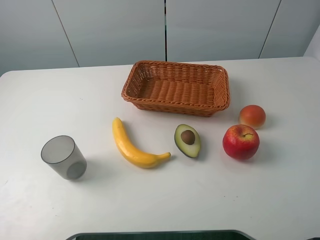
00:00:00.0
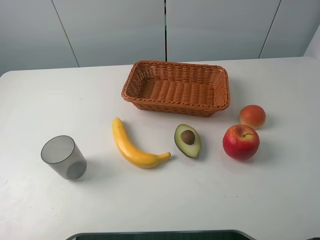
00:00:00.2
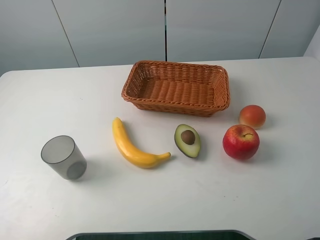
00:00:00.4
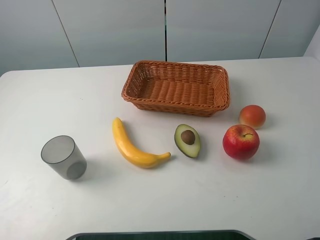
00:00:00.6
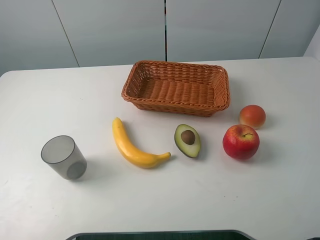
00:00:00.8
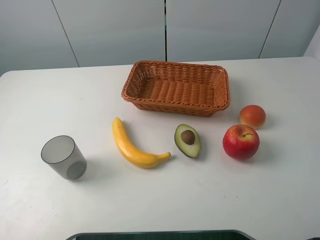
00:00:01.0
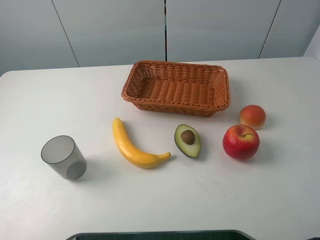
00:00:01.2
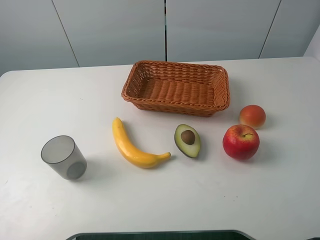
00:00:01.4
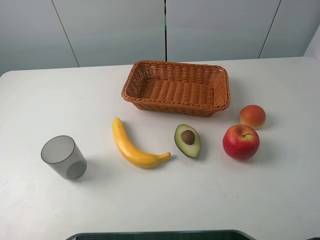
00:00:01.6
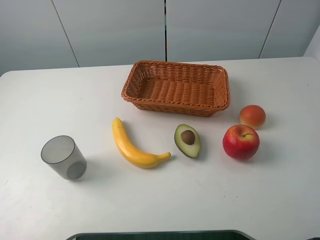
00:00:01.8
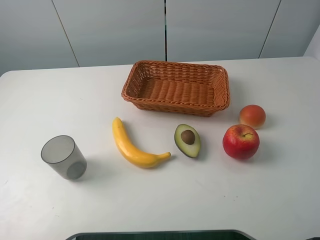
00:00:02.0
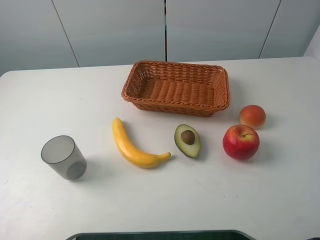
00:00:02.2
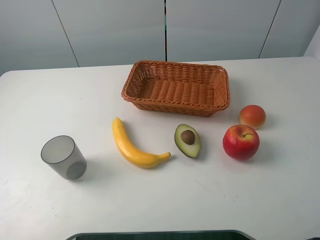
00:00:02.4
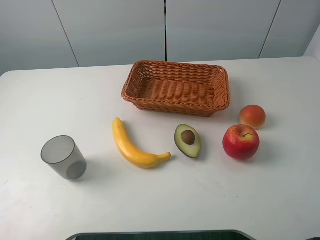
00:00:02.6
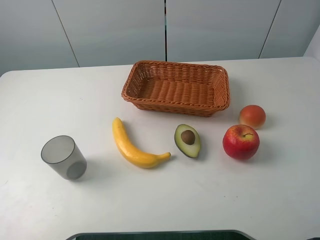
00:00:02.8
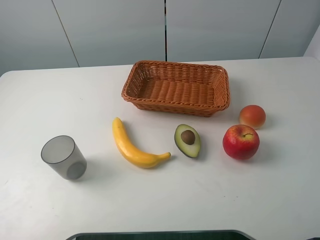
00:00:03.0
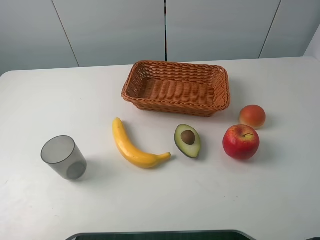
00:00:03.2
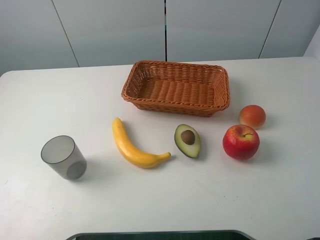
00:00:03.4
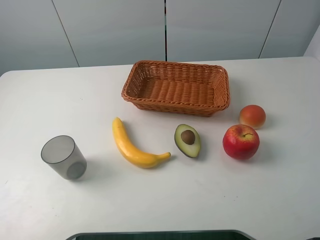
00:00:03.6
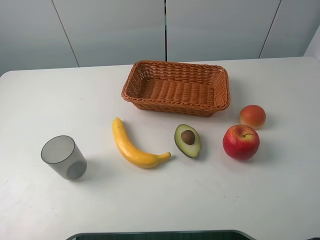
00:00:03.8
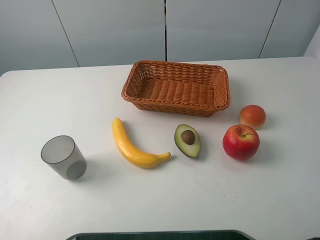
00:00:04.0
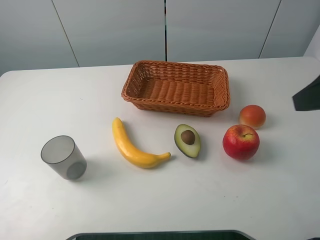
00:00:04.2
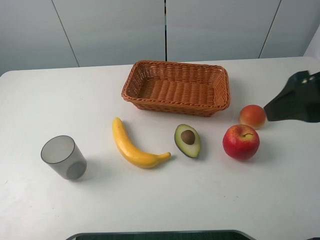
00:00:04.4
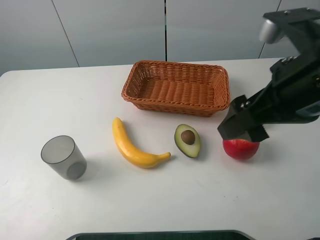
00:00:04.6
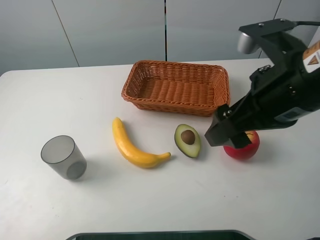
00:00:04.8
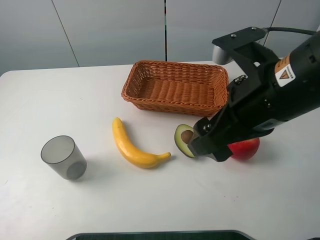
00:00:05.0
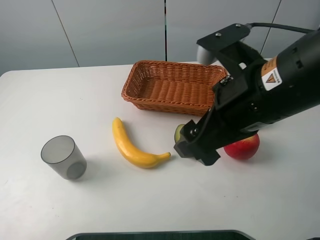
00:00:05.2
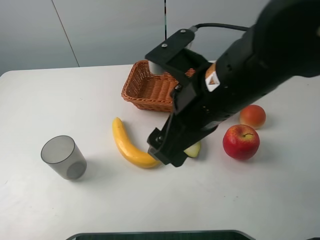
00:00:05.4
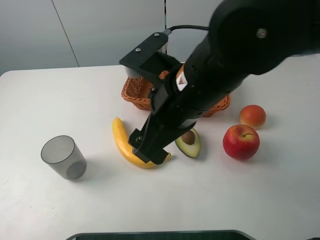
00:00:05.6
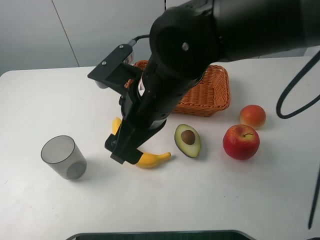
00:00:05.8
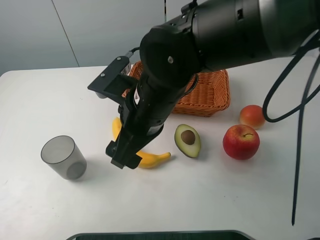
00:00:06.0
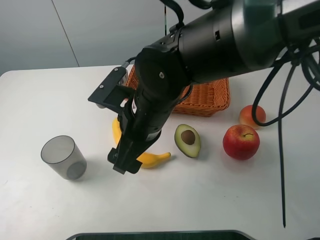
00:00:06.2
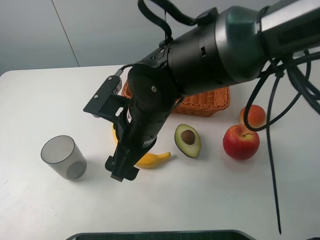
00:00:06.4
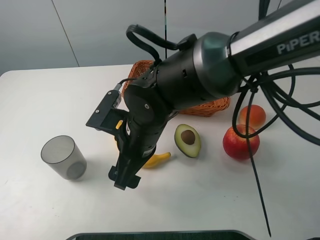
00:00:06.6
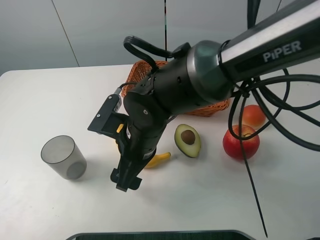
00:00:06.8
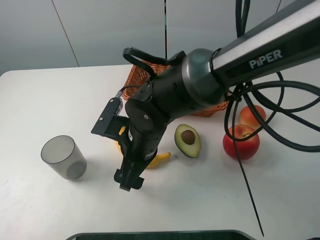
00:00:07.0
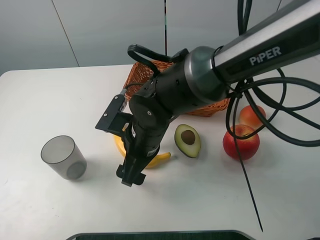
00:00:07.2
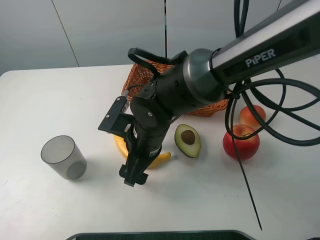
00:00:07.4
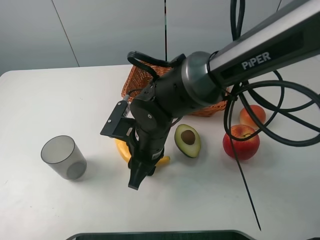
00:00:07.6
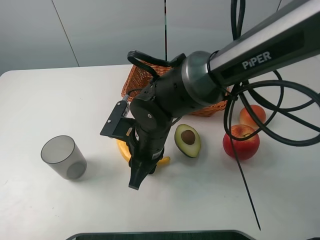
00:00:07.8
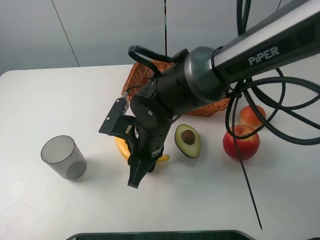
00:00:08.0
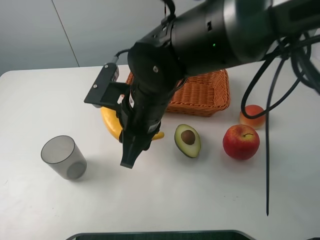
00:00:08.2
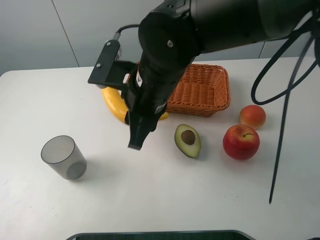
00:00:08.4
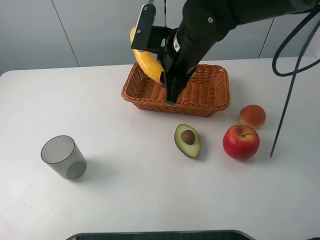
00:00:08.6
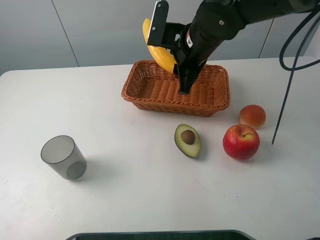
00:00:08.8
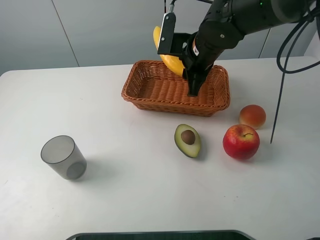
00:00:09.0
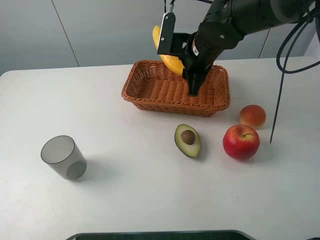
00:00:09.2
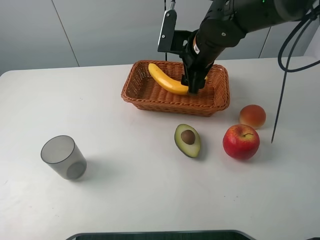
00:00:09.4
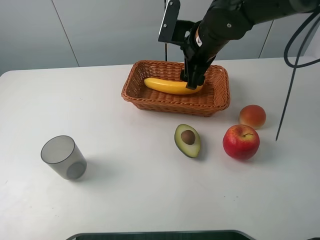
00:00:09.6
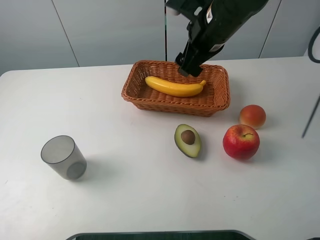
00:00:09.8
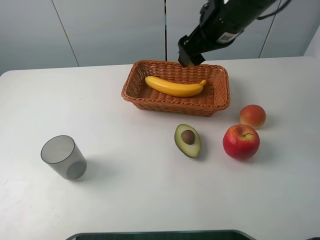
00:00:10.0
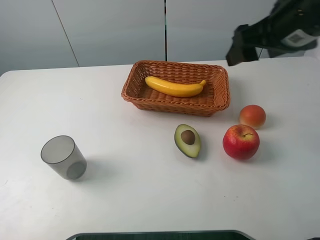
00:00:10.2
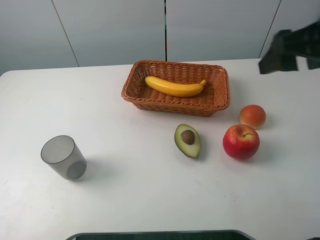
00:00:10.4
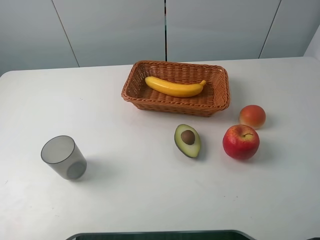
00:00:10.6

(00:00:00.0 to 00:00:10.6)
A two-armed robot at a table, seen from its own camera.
Task of the whole recording: randomly pick up an item from the table and put it in the basket.
Step, 00:00:00.0 - 00:00:07.6: Grasp the banana with the right gripper.
Step, 00:00:07.8 - 00:00:09.6: Place the banana into the basket with the right gripper.
00:00:00.0 - 00:00:01.6: Both grippers stay put.
00:00:03.0 - 00:00:04.6: The right gripper shifts some 20 cm forward, to the left and downward.
00:00:04.6 - 00:00:06.0: The right gripper goes approximately 20 cm to the left and downward.
00:00:06.0 - 00:00:07.6: The right gripper heads downward, covering roughly 10 cm, and closes its fingers.
00:00:07.6 - 00:00:09.0: The right gripper shifts about 20 cm forward, to the right and upward.
00:00:09.0 - 00:00:10.6: The right gripper shifts about 35 cm backward, to the right and upward, and opens up.

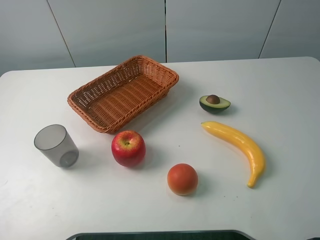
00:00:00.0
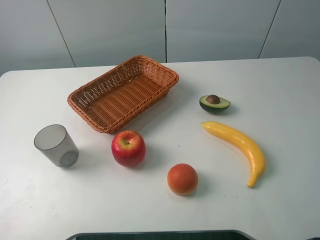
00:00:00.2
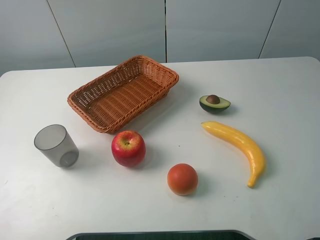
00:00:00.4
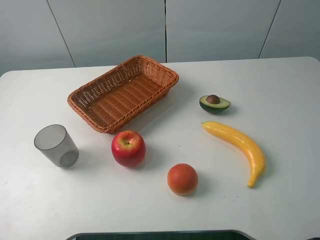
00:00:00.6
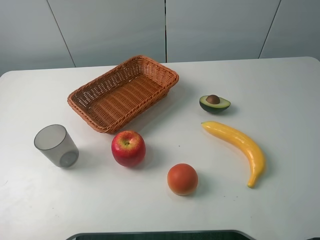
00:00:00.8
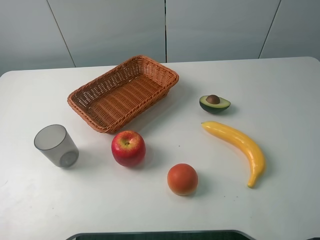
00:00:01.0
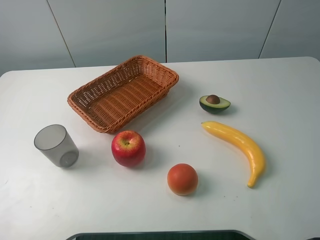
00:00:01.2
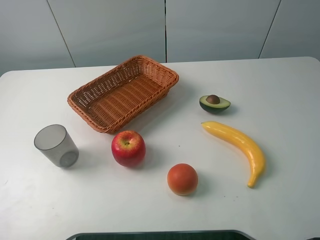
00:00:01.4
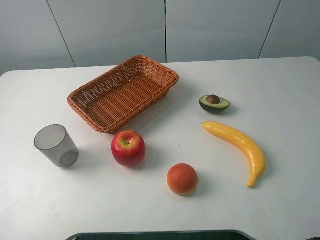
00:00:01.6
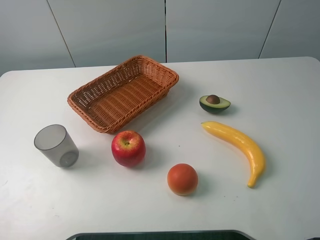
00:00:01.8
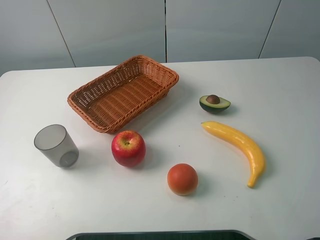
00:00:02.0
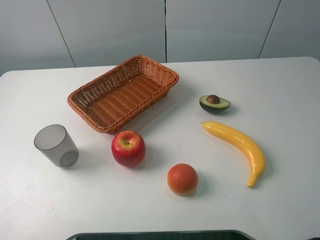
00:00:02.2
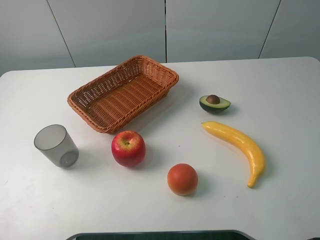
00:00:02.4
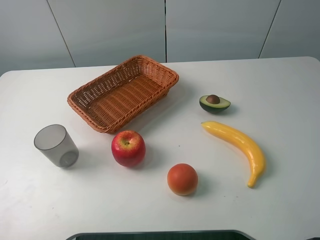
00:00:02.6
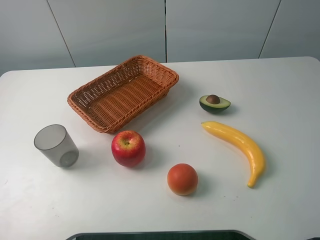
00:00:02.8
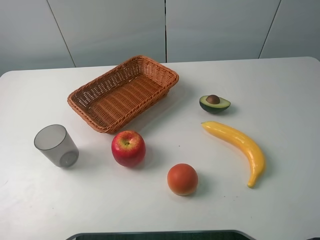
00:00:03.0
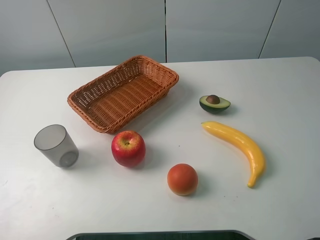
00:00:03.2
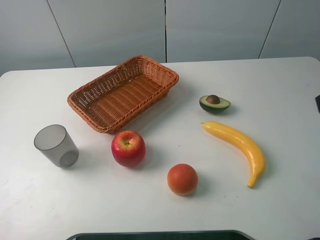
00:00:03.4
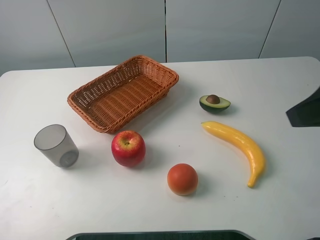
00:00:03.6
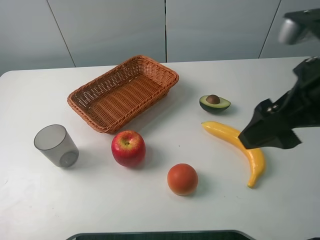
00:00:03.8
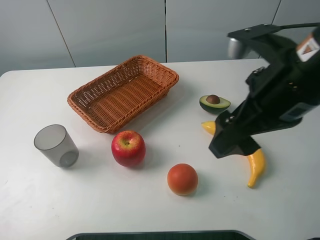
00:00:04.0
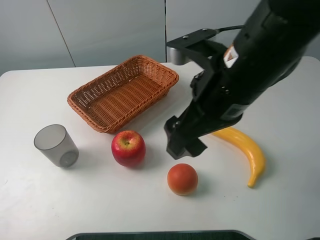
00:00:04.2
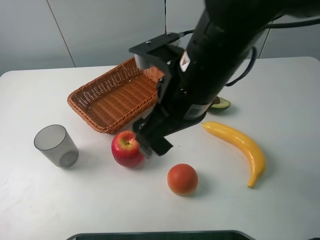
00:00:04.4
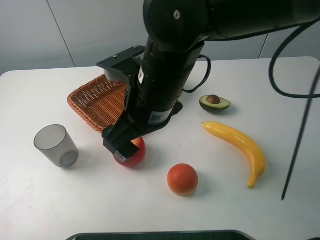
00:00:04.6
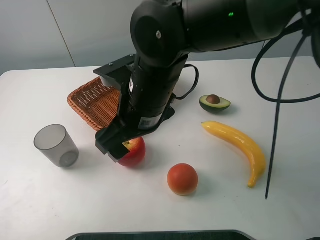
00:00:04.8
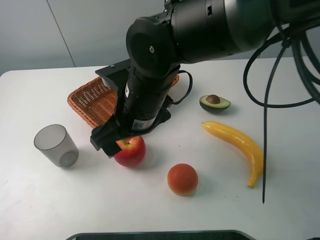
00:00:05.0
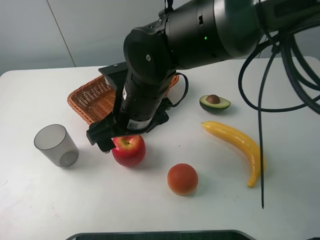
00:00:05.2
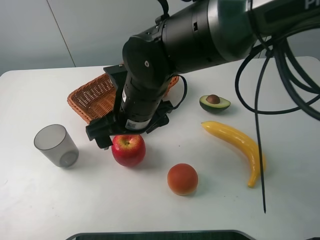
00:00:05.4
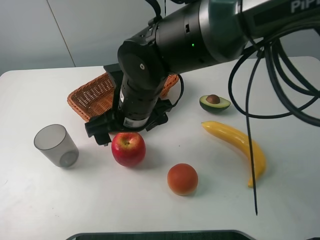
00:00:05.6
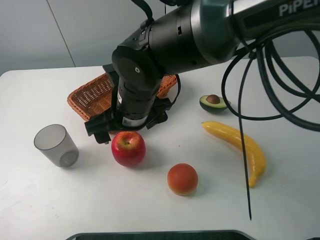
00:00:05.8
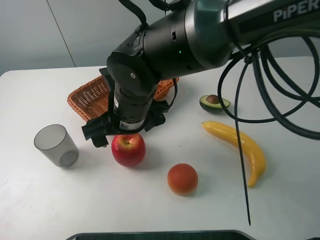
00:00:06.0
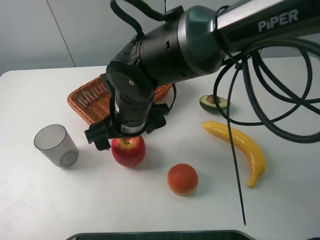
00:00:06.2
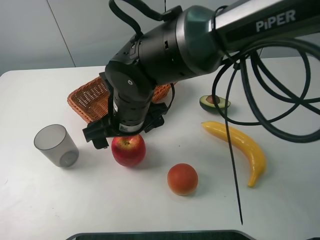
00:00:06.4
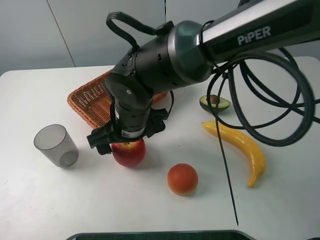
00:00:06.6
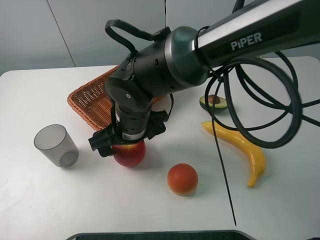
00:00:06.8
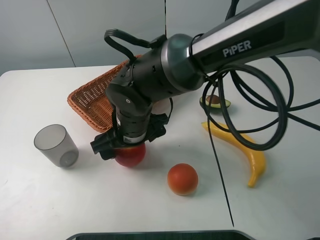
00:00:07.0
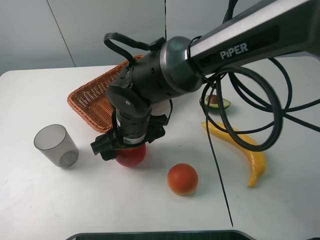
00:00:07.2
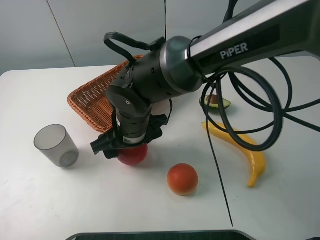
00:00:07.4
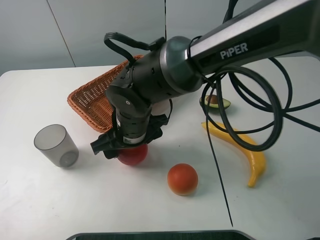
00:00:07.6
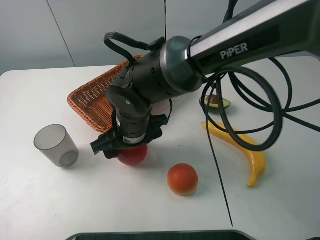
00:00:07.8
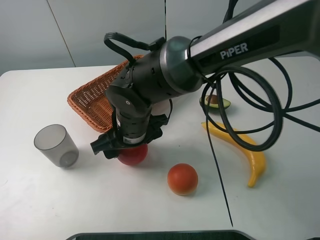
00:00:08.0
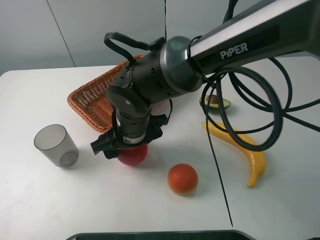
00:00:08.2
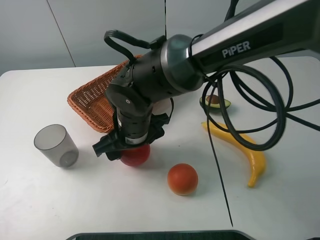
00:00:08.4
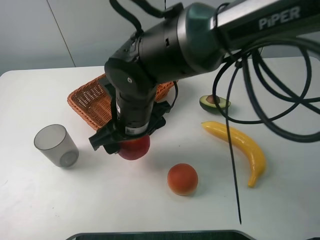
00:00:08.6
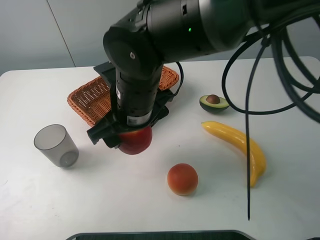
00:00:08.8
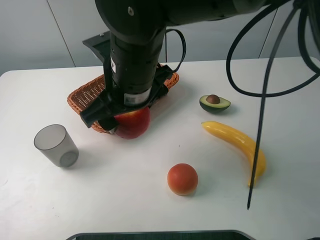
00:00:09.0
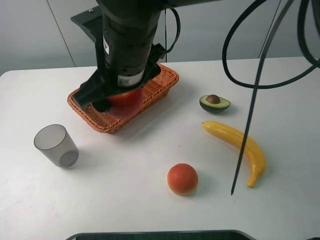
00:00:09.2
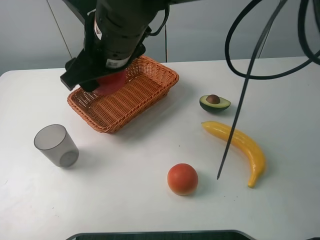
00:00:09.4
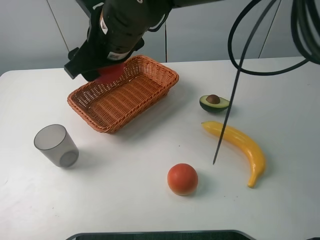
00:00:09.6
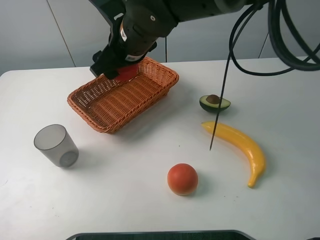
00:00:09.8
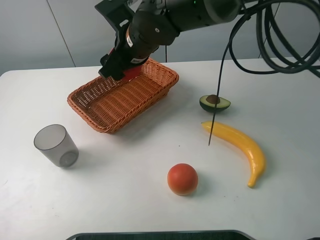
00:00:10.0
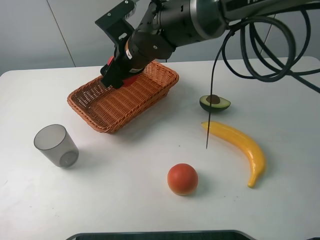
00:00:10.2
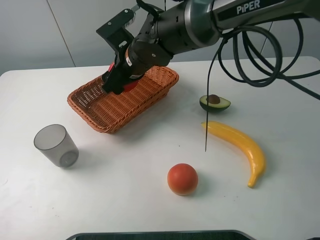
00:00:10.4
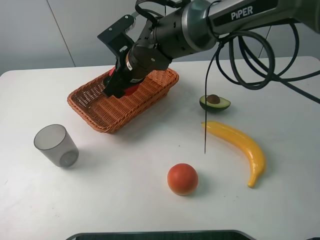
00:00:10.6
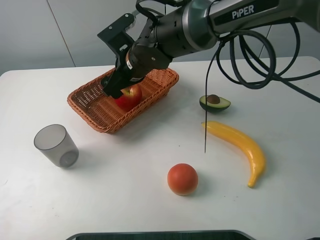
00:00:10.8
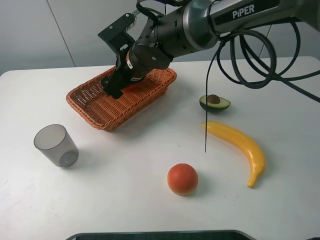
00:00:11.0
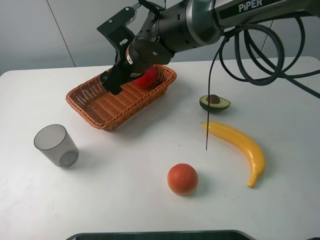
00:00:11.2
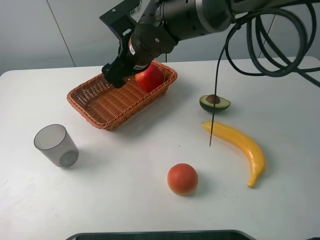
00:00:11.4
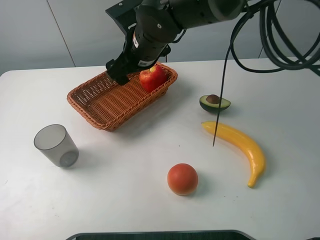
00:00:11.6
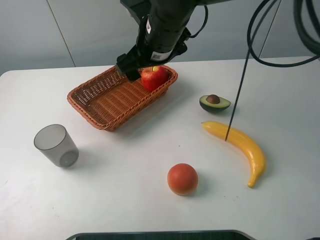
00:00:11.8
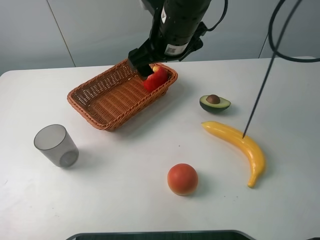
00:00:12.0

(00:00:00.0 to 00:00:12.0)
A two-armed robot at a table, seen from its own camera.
Task of the whole recording: randomly pick up an item from the table and put it in the basket.
Step, 00:00:00.0 - 00:00:07.6: Grasp the apple with the right gripper.
Step, 00:00:07.8 - 00:00:12.0: Place the apple into the basket with the right gripper.
00:00:00.0 - 00:00:01.6: Both grippers stay put.
00:00:03.0 - 00:00:04.4: The right gripper is displaced to the left, forward and downward by approximately 30 cm.
00:00:04.4 - 00:00:06.0: The right gripper travels to the left and downward by about 10 cm.
00:00:06.0 - 00:00:07.6: The right gripper closes up.
00:00:07.6 - 00:00:09.0: The right gripper is displaced upward by approximately 10 cm.
00:00:09.0 - 00:00:10.4: The right gripper shifts roughly 15 cm forward and downward.
00:00:10.4 - 00:00:12.0: The right gripper travels upward and to the right by approximately 10 cm, and opens up.
